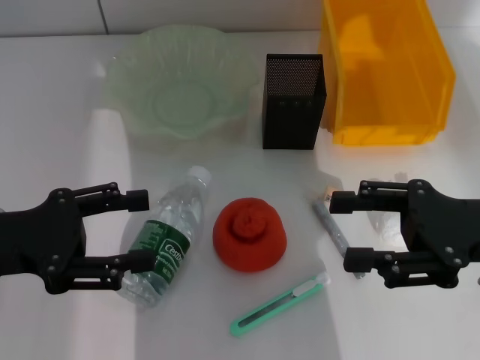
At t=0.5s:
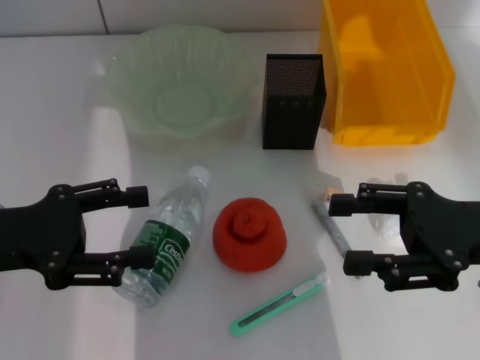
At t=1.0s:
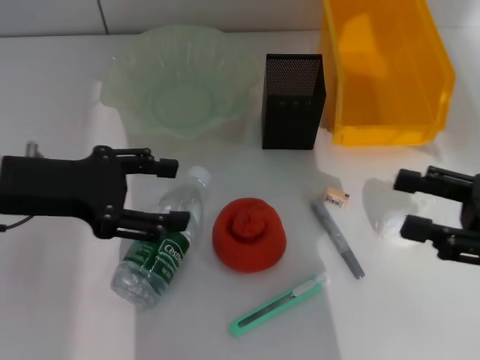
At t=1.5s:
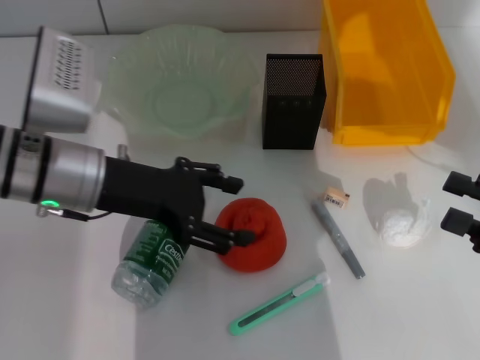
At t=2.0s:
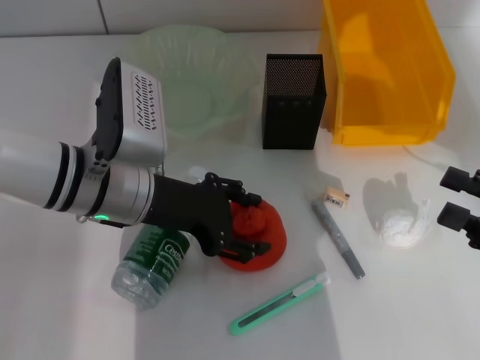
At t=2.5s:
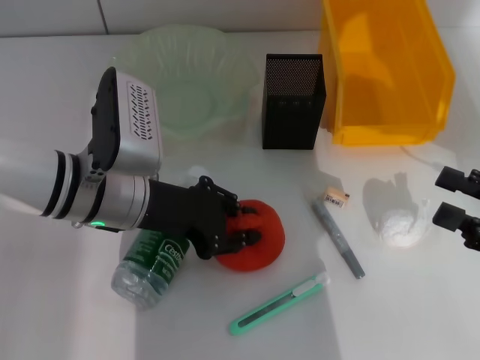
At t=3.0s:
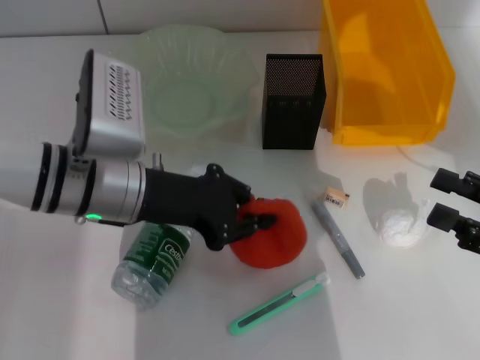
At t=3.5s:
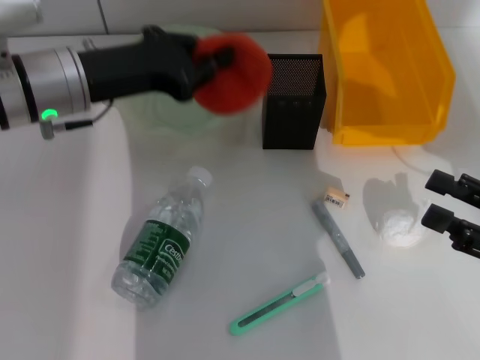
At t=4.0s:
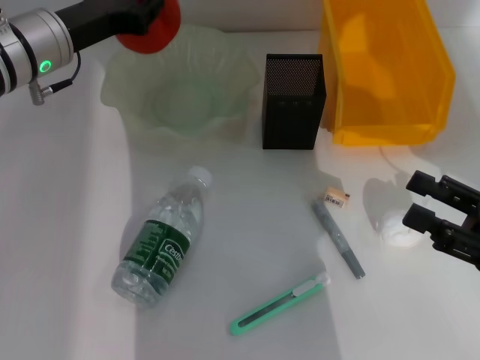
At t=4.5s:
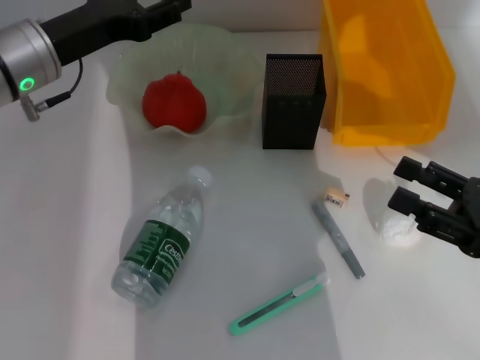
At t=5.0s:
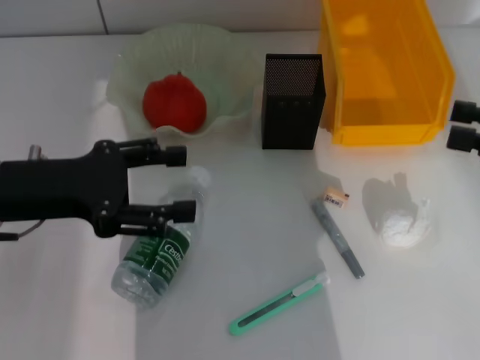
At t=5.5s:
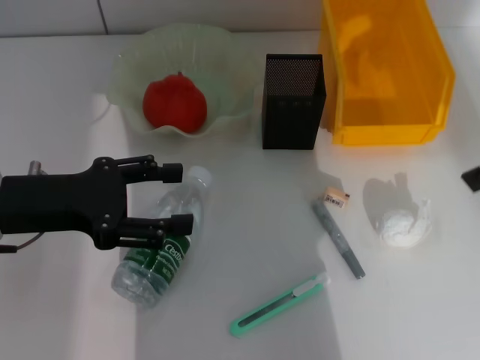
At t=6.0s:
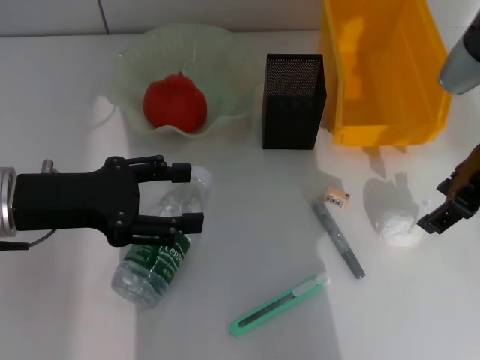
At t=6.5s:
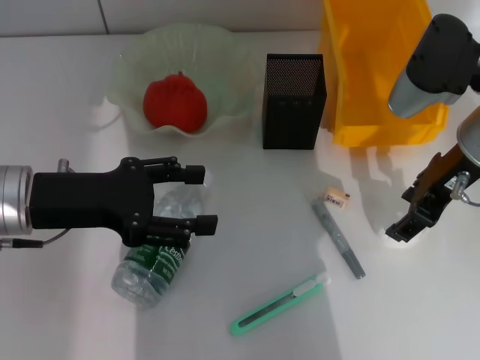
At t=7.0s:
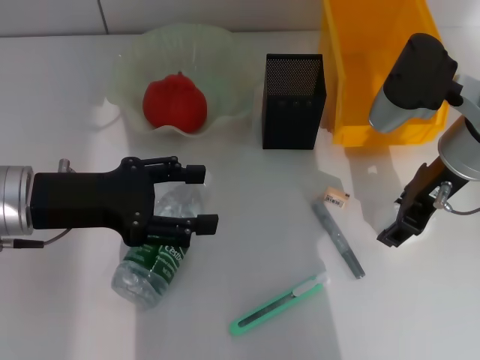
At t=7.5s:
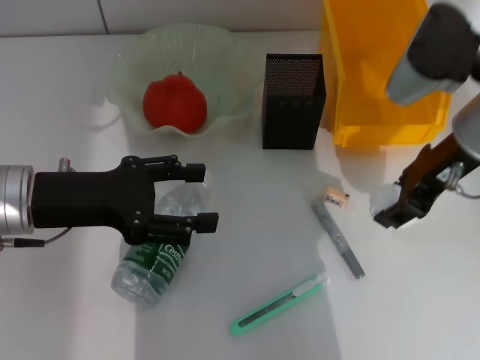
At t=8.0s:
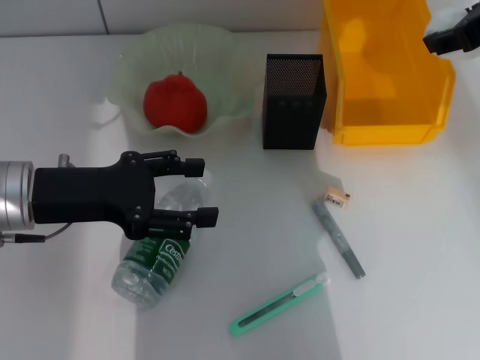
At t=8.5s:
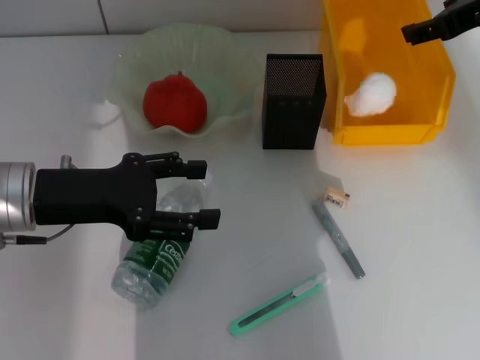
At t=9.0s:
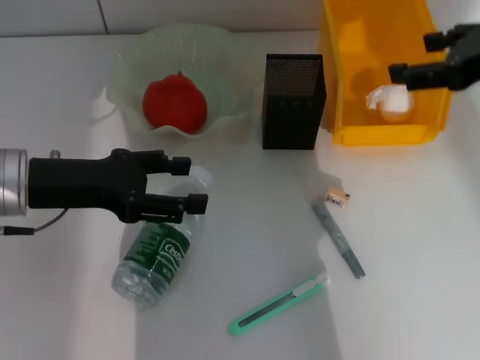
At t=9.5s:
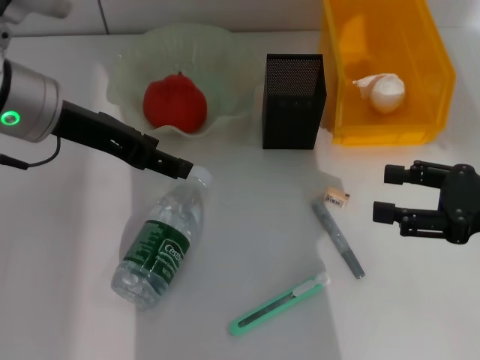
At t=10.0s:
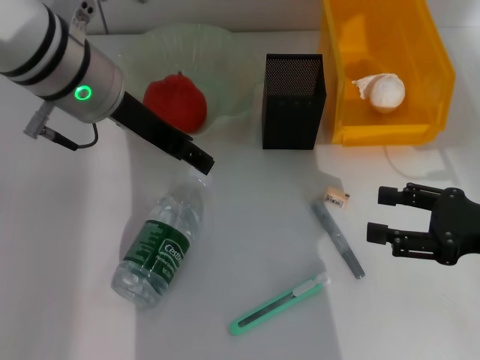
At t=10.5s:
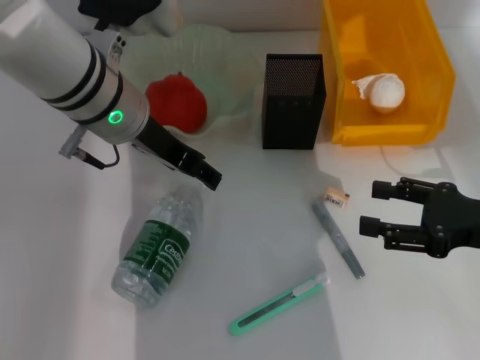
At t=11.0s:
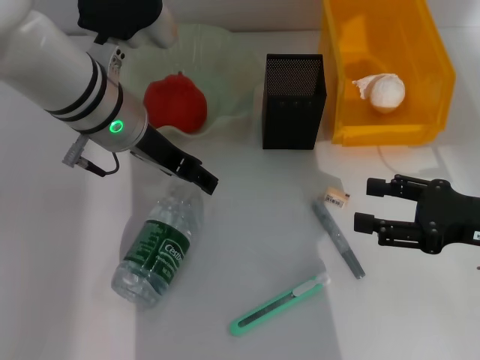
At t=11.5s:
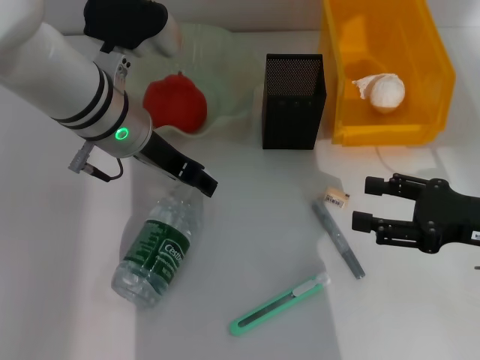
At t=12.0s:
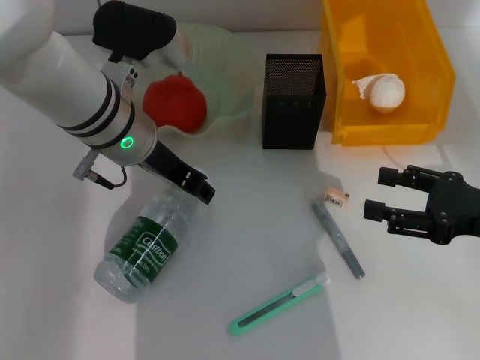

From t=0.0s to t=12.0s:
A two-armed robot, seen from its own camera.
Step, from t=0.0s to t=2.5s: Grab the orange with the left hand.
Step, from t=3.0s to t=4.5s: Place the orange into the fruit bowl with the left hand.
Step, from t=5.0s to t=7.0s: Grab the paper ball with the right hand.
Step, from t=7.5s to t=8.5s: Place the paper ball into the trash can with the right hand.
From t=0.0s to t=2.0s: The right gripper moves to the right and backward, roughly 10 cm. Meanwhile the left gripper heads to the right and forward, covering approximately 15 cm.
From t=2.0s to t=4.0s: The left gripper travels forward and to the left by approximately 10 cm, and closes up.
From t=4.0s to t=6.0s: The right gripper travels forward, upward and to the left by approximately 20 cm. The left gripper shifts some 15 cm backward, and opens up.
From t=6.0s to t=8.0s: The right gripper goes about 10 cm upward.
From t=8.0s to t=10.0s: The right gripper goes about 25 cm downward and backward, and opens its fingers. The left gripper travels to the right, upward and forward by some 15 cm.
From t=10.0s to t=12.0s: The left gripper shifts about 5 cm downward, and closes its fingers.

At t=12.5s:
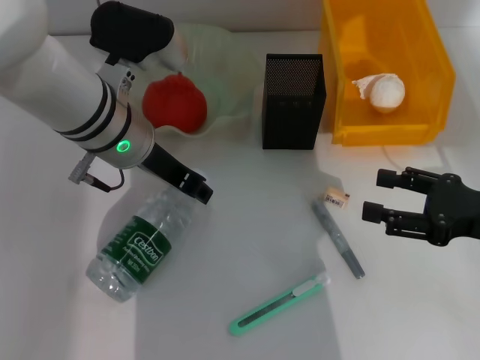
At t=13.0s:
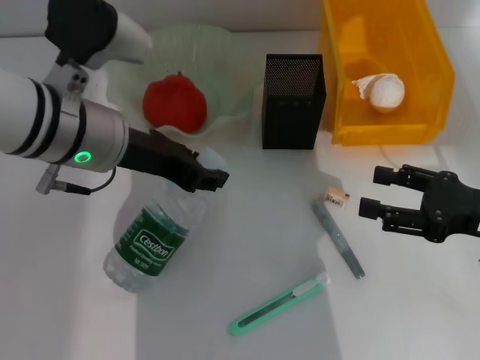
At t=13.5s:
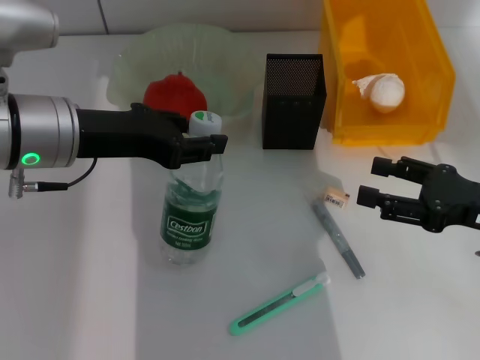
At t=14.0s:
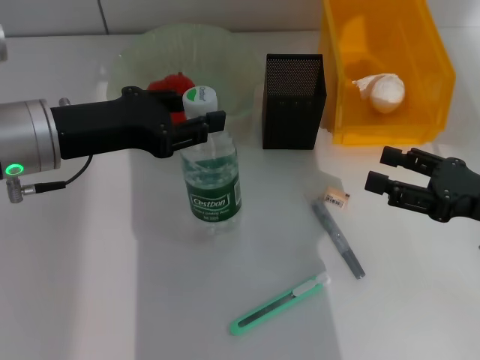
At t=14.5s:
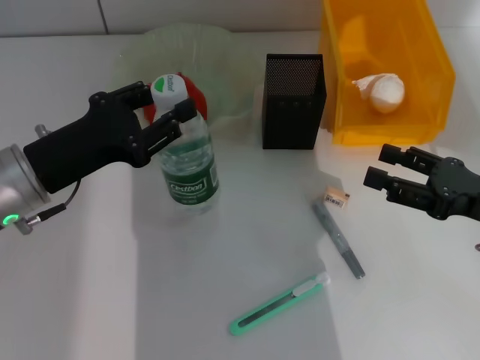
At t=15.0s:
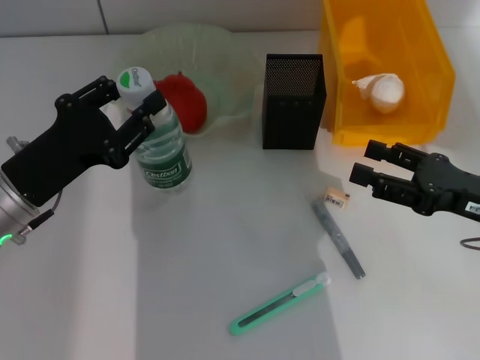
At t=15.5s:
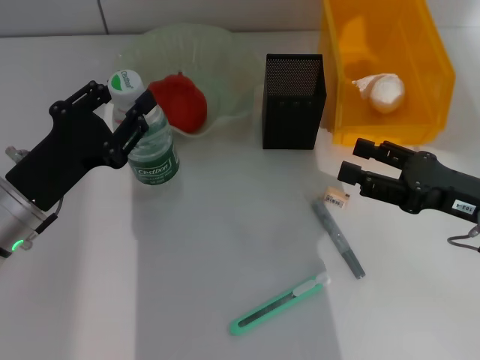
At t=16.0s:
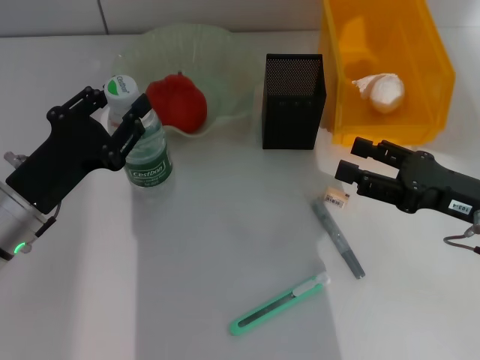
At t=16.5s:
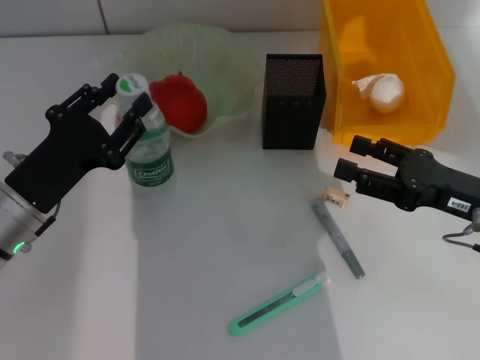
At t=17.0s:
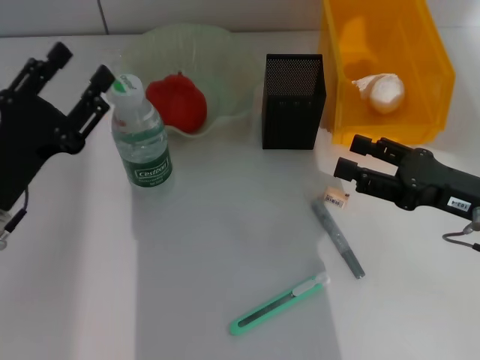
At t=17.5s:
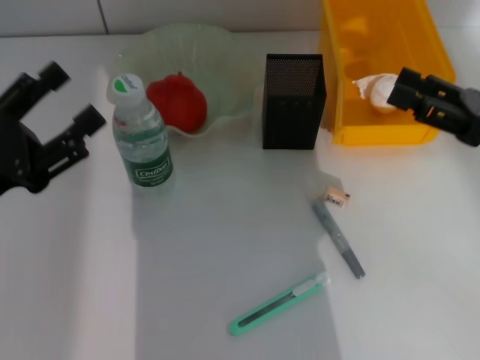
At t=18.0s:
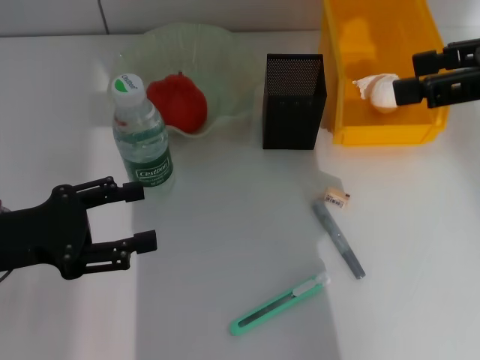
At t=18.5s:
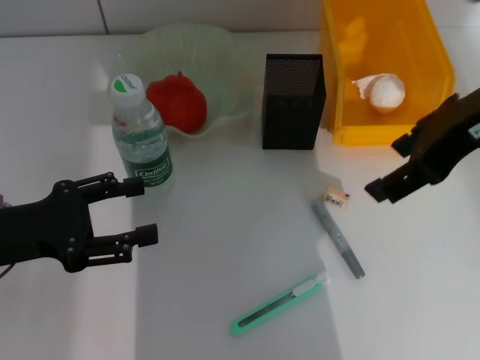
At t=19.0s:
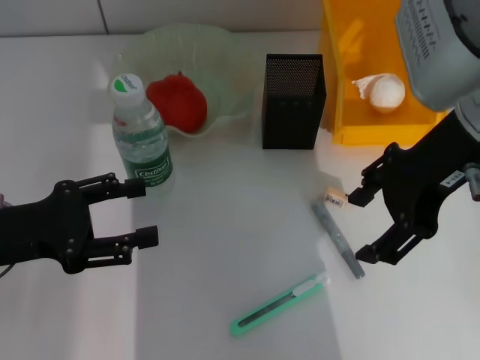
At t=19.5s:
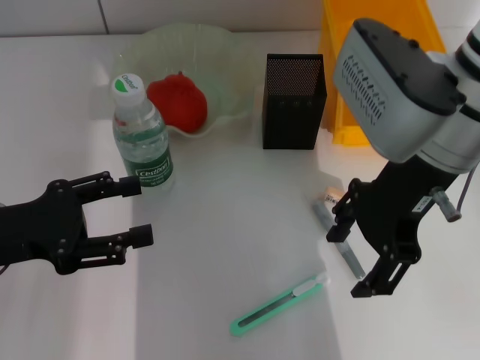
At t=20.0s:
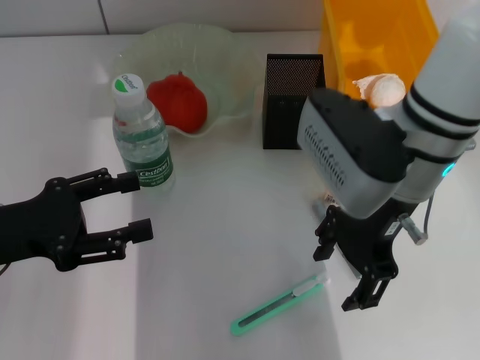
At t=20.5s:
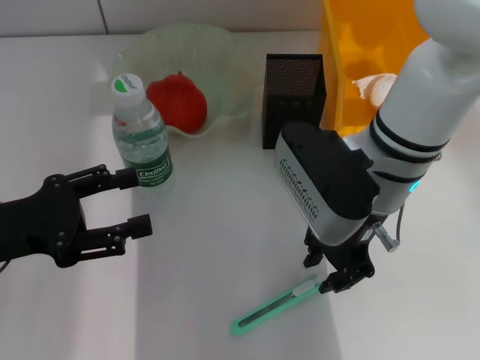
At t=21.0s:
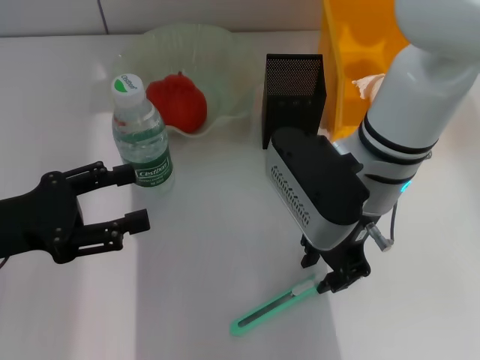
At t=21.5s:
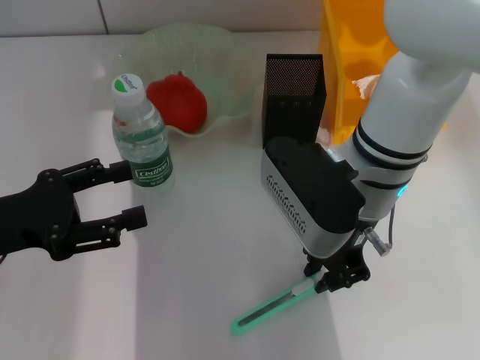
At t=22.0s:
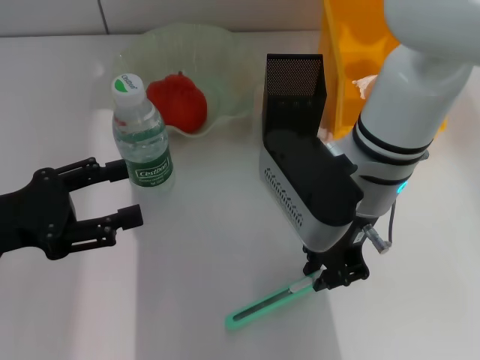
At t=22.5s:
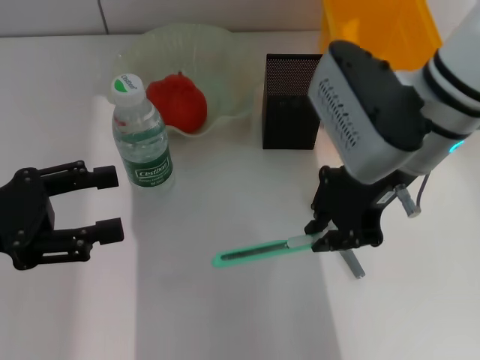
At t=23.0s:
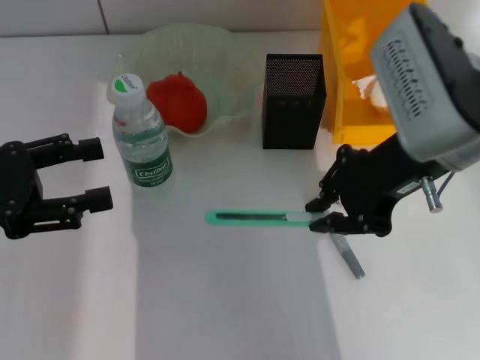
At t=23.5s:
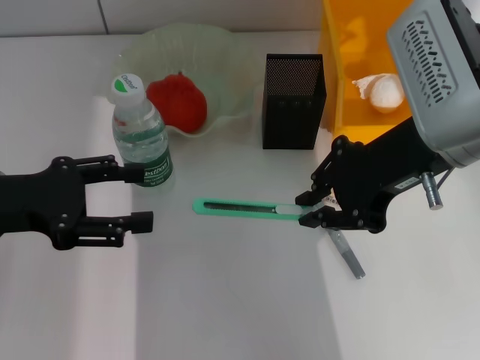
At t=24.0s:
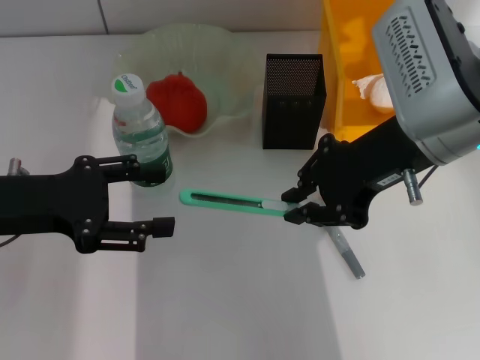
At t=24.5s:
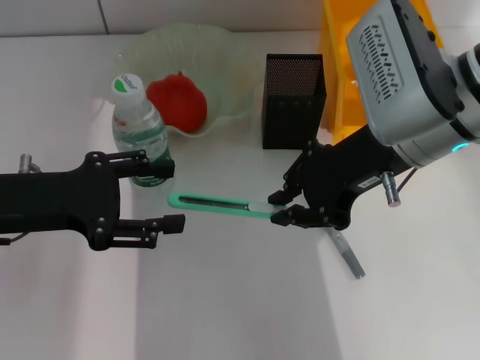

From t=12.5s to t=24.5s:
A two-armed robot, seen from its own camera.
Step, from t=12.5s to t=16.5s: Place the water bottle on the table with the left hand.
Step, from t=17.0s to t=21.5s: Grab the blue utility knife with the right hand.
From t=12.5s to t=14.5s: The left gripper moves to the left and backward, approximately 15 cm.
From t=14.5s to t=16.5s: The left gripper shifts by some 5 cm.
From t=16.5s to t=18.5s: The left gripper moves roughly 5 cm, and opens up, while the right gripper shifts some 20 cm upward and to the left.
From t=18.5s to t=20.5s: The right gripper is displaced downward and to the left by some 15 cm, and closes.
From t=20.5s to t=22.5s: The right gripper goes some 5 cm upward, and closes.
From t=22.5s to t=24.5s: The left gripper changes place by about 5 cm.

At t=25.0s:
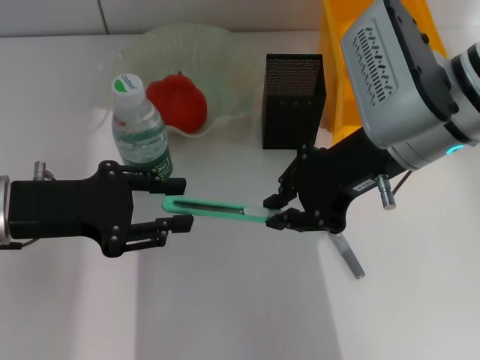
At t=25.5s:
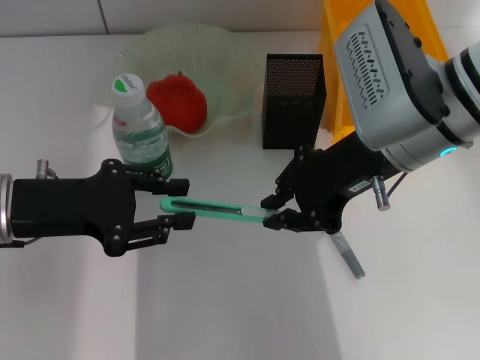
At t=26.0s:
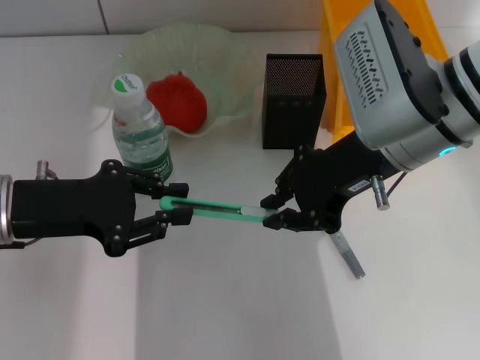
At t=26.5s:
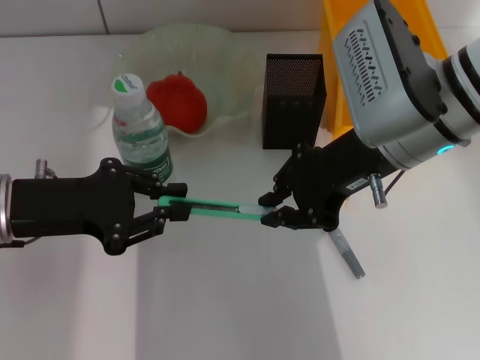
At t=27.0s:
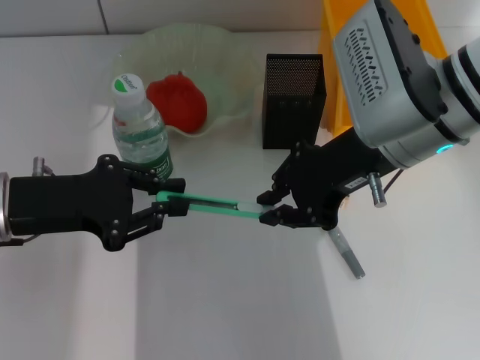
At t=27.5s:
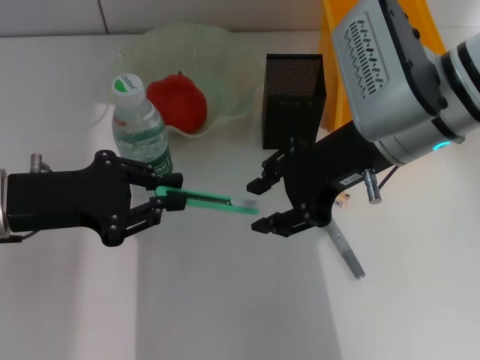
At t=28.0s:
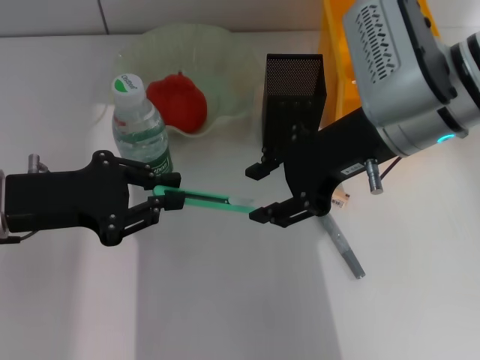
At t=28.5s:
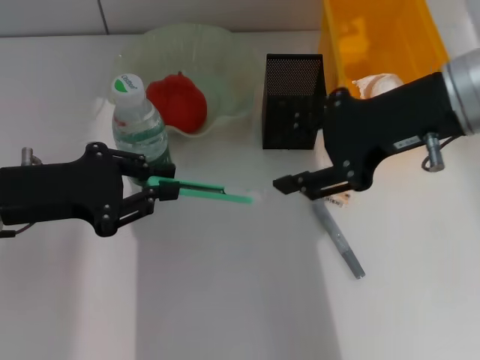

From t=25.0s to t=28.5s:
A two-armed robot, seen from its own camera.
Step, from t=25.0s to t=27.5s: Place the blue utility knife into the pen holder with the right hand.
From t=25.0s to t=27.0s: The left gripper closes up.
From t=27.0s to t=28.5s: The right gripper shifts by about 5 cm, and opens its fingers.
